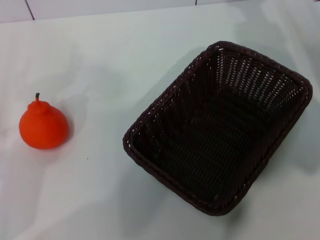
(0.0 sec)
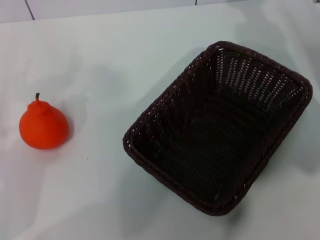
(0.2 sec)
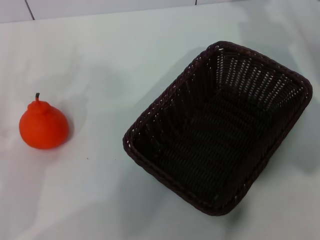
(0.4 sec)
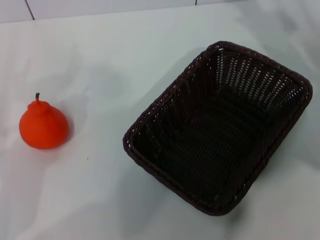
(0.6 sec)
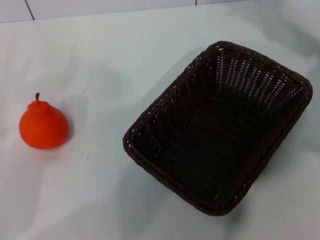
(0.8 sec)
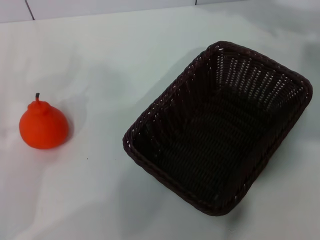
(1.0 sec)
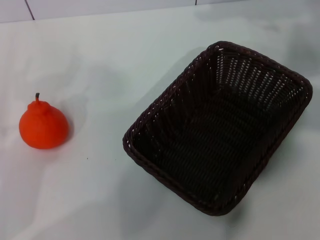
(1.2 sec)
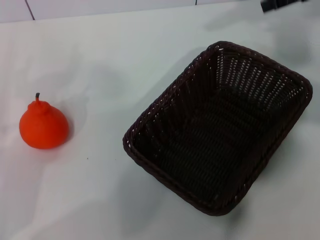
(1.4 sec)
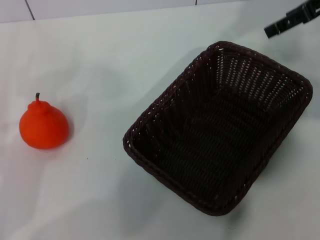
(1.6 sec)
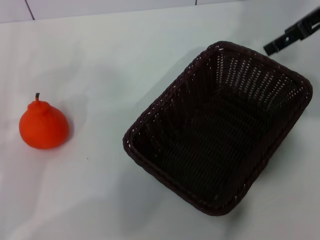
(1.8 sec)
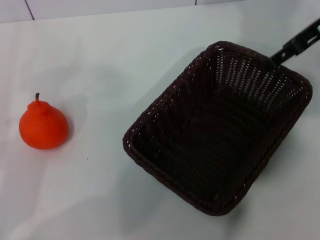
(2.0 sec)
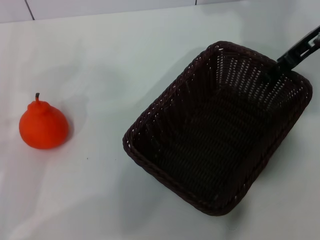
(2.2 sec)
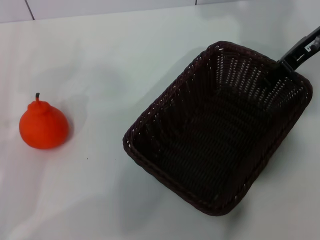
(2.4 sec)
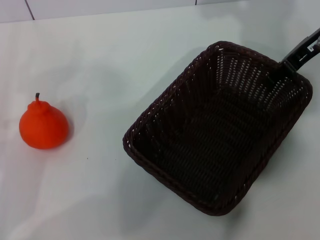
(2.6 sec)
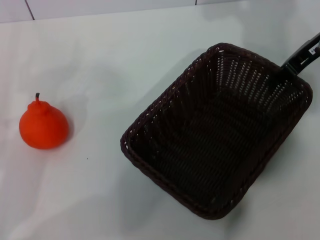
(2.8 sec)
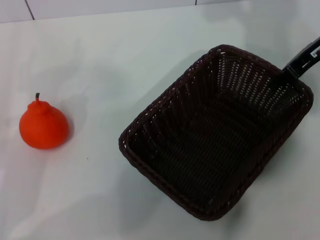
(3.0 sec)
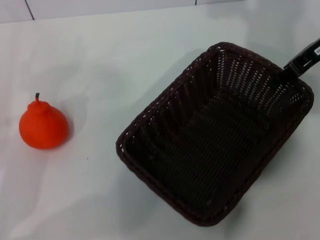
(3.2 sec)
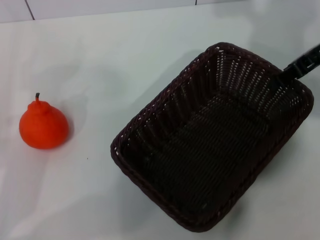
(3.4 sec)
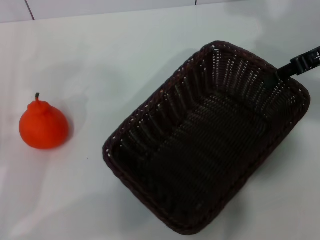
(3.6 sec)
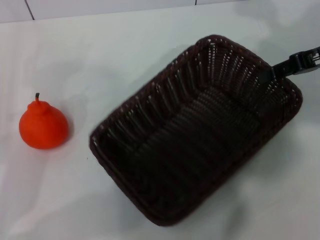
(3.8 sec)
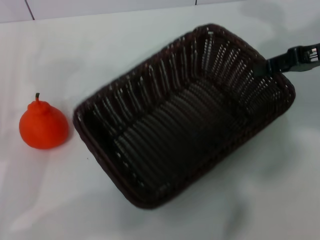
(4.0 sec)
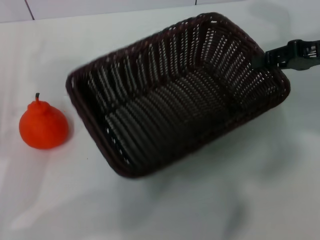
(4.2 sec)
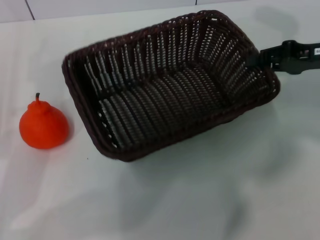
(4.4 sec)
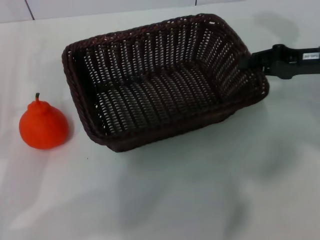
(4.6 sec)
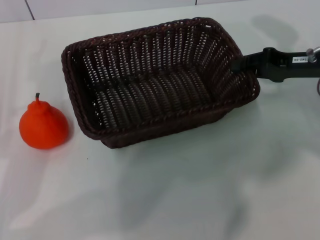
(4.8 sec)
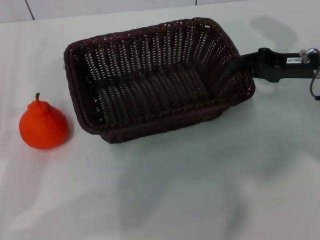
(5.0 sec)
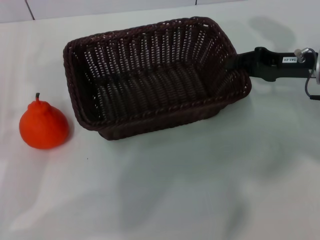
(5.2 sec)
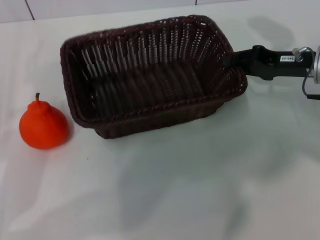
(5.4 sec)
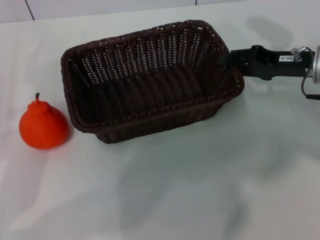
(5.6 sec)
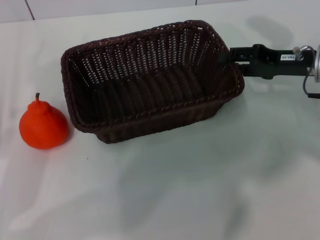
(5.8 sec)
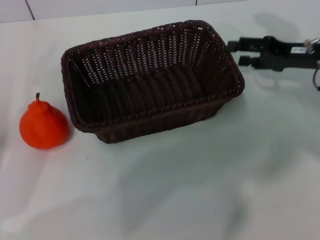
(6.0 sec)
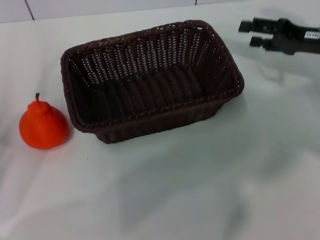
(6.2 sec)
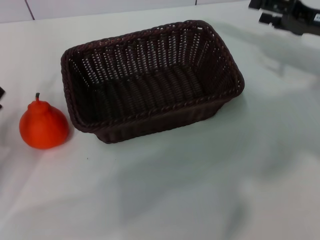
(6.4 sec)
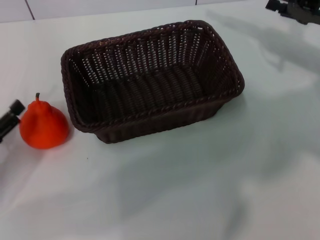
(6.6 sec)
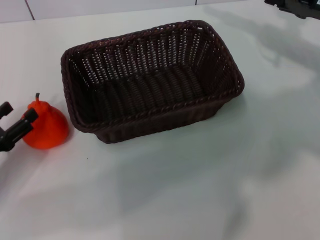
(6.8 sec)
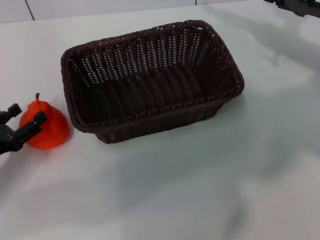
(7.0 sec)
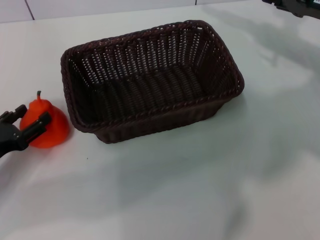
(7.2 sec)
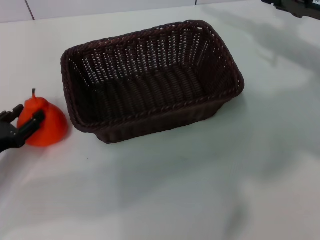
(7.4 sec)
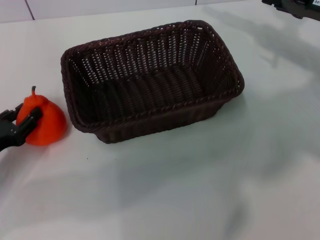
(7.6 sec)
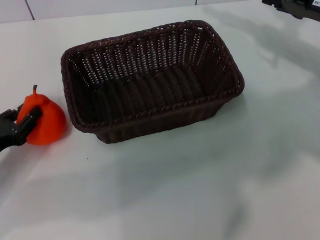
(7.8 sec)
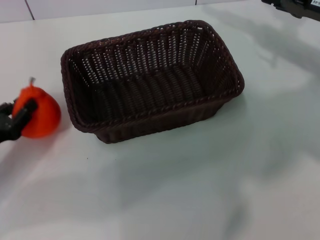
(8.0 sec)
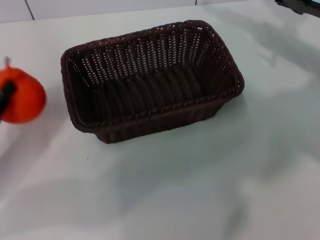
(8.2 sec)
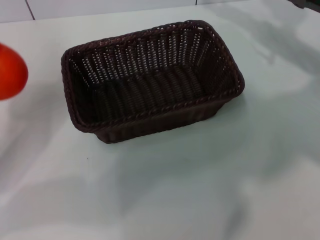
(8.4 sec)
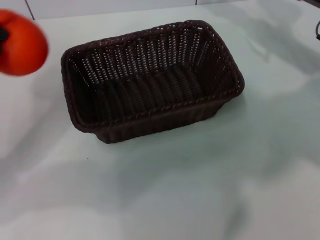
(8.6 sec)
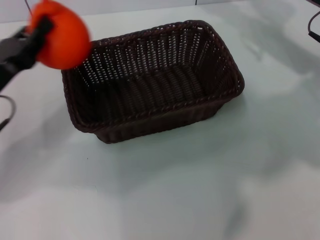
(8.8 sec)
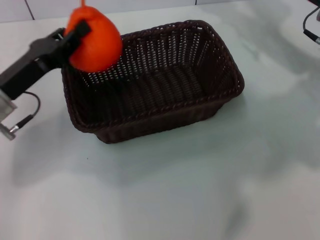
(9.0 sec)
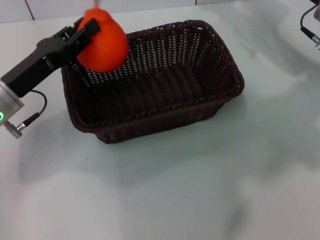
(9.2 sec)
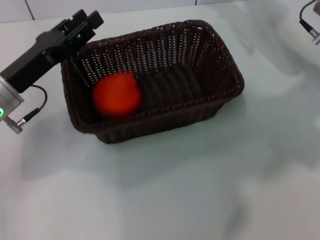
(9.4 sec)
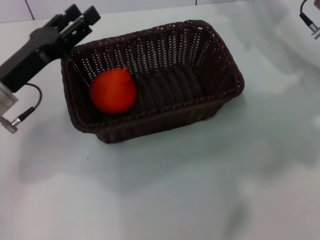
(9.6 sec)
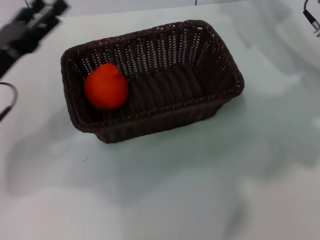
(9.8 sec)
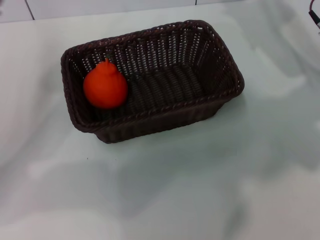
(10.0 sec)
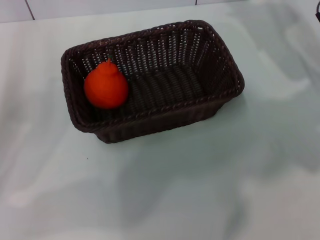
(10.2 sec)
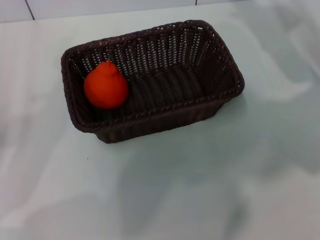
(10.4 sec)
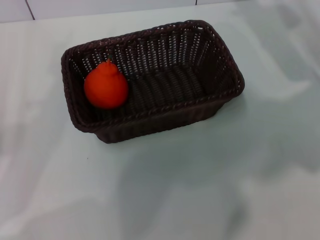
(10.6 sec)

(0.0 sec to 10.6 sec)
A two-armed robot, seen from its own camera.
Task of the whole recording: the right gripper pick up the black basket and place it horizontally in the middle of the table, the left gripper pick up the orange and place it into the black basket.
Step, 0.0 sec - 3.6 sec: Pick up the dark basket with the right gripper.
Step, 3.8 sec - 6.0 sec: Place the dark basket in the center of view with the right gripper.
Step, 6.2 sec - 8.0 sec: Pick up the orange with the left gripper.
Step, 8.2 sec - 9.4 sec: Place the orange into the dark basket with the left gripper.
0.0 sec - 1.6 sec: The right gripper travels upward by some 15 cm.
1.6 sec - 3.0 sec: The right gripper goes about 5 cm downward, and closes up.
3.0 sec - 4.6 sec: The right gripper is displaced downward by some 5 cm.
4.6 sec - 6.0 sec: The right gripper opens its fingers.
7.6 sec - 9.0 sec: The left gripper moves to the right, upward and forward, some 10 cm, and closes up.
9.0 sec - 10.6 sec: The left gripper moves backward and to the left, approximately 15 cm, and opens its fingers.

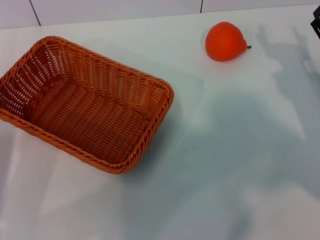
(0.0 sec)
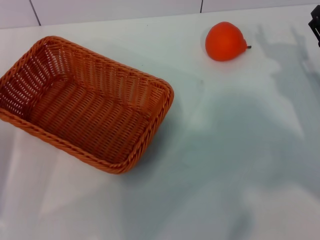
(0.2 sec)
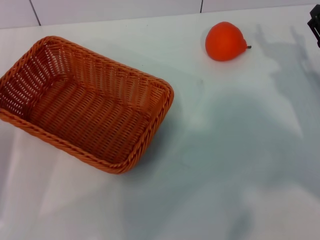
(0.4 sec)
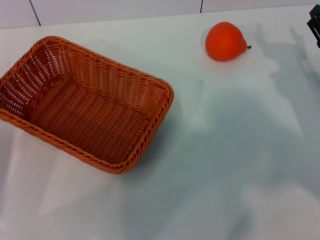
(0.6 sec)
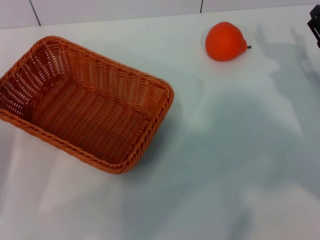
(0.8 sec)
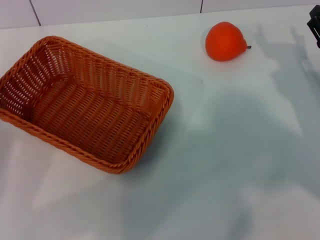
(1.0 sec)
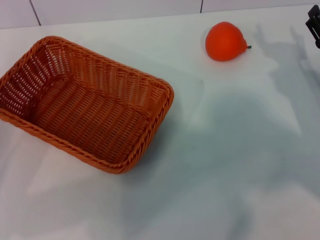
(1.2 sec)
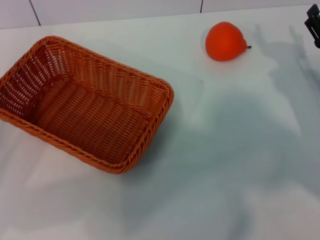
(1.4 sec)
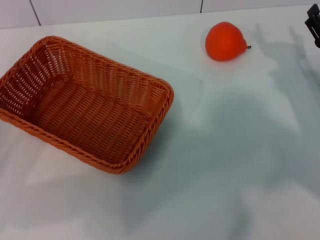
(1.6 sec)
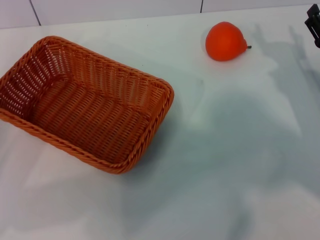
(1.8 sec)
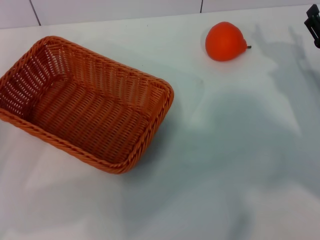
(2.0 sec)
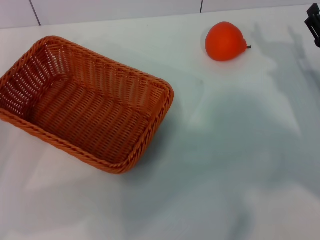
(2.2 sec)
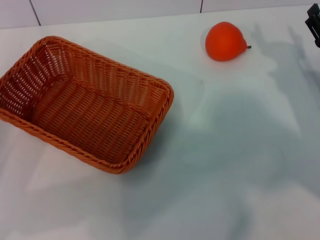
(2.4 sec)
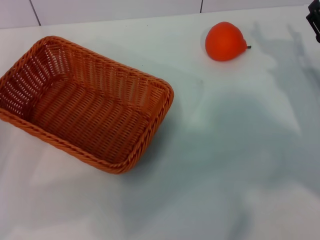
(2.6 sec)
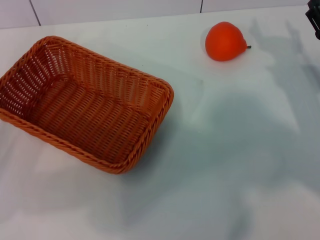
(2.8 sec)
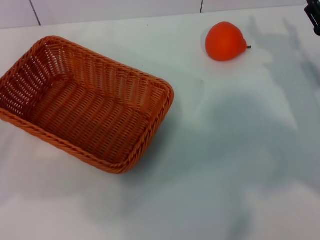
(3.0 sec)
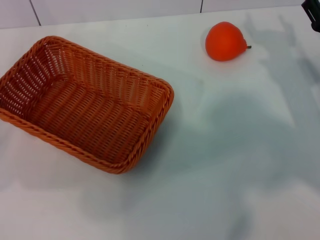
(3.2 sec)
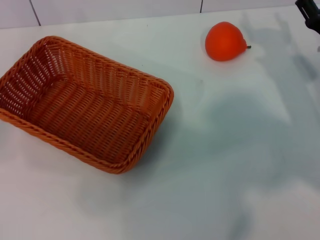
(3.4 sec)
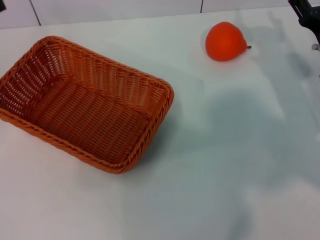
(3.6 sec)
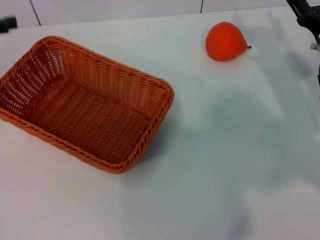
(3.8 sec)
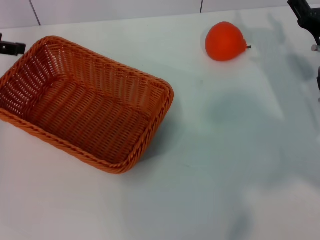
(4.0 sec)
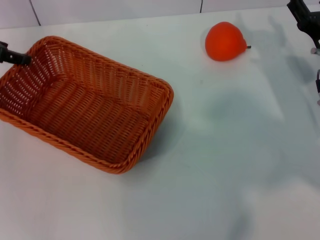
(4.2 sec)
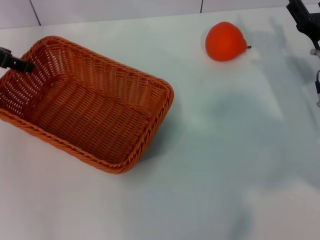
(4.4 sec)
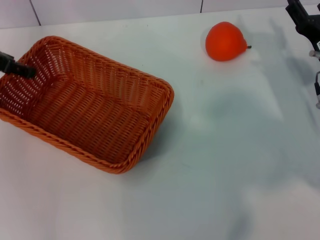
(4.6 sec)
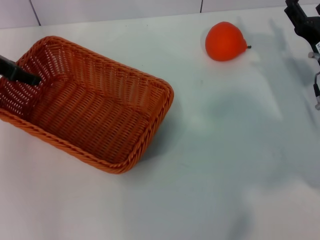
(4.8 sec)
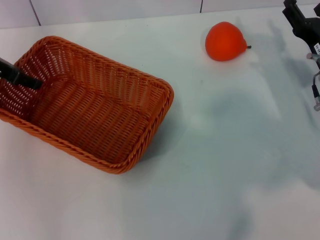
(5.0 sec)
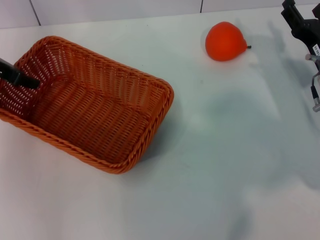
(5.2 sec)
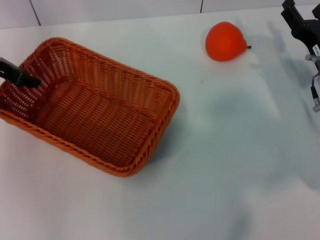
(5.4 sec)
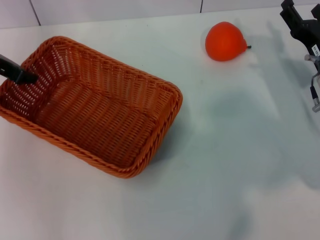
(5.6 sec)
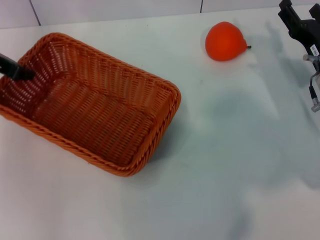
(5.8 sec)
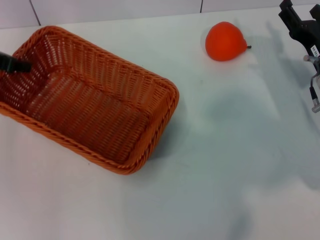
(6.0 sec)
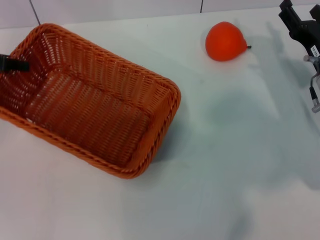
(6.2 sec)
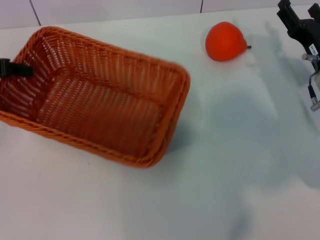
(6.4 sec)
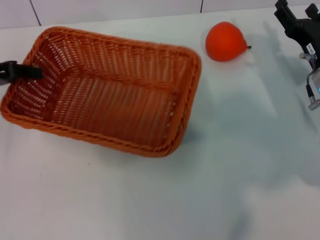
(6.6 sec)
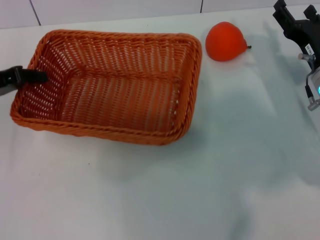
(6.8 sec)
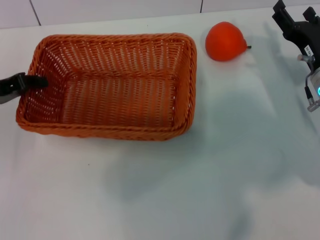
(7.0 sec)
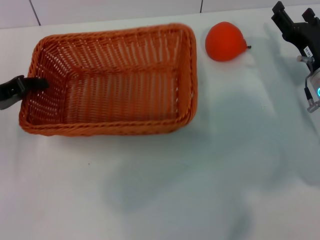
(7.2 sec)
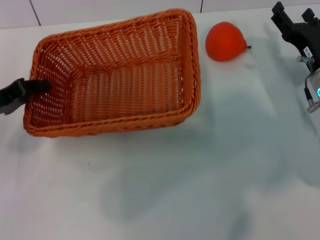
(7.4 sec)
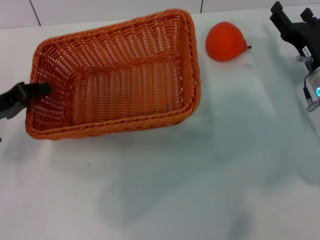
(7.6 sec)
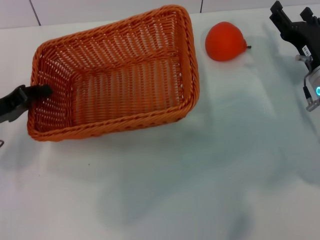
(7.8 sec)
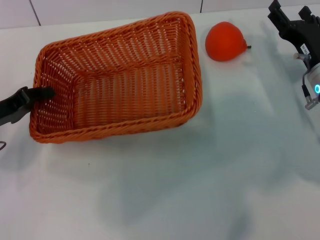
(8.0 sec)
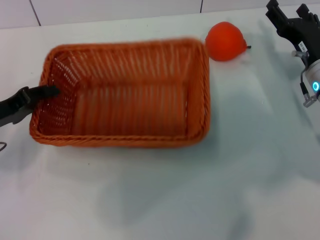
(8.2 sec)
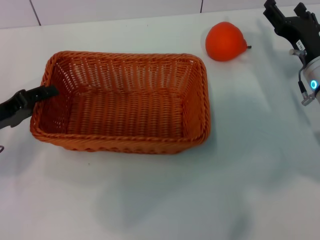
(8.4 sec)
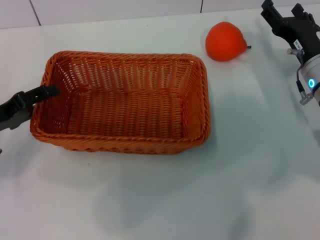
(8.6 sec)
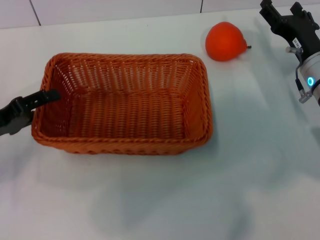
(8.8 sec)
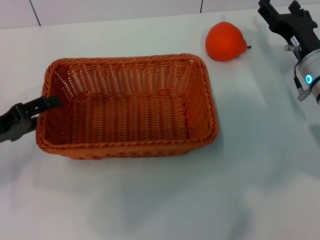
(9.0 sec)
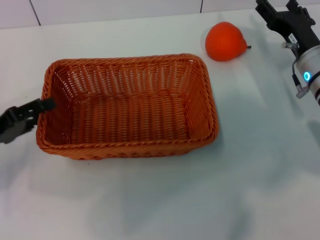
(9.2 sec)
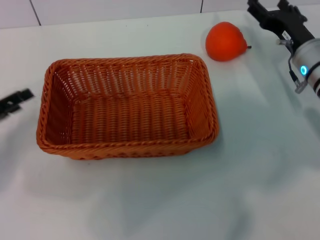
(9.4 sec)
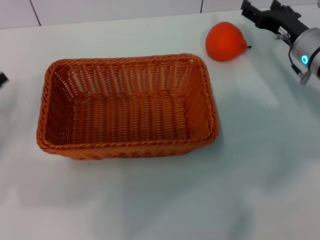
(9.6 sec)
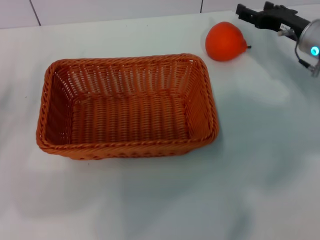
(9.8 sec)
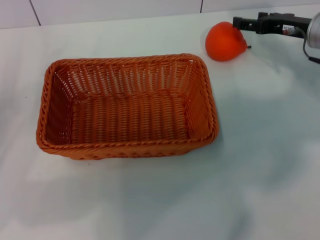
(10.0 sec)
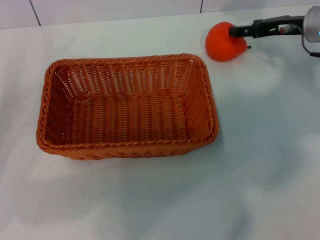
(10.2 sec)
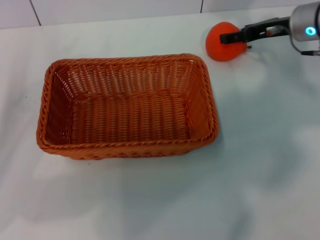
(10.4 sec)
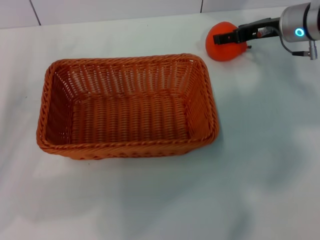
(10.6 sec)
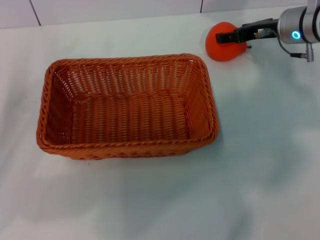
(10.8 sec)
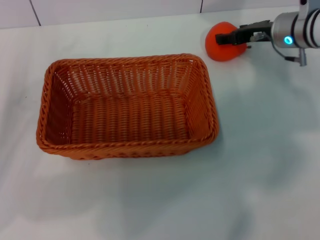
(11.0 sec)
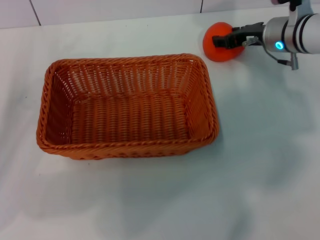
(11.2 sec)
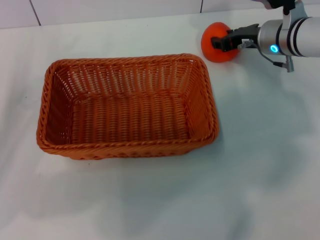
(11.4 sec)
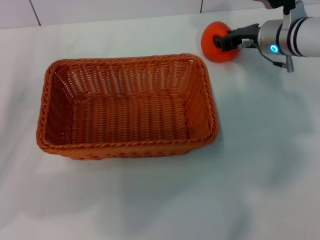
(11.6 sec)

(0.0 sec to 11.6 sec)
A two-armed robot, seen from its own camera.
Task of the whole recording: the left gripper pick up the yellow basket and place it horizontally in the middle of the table, the right gripper pick up the orange and place it into the yellow basket.
Step, 0.0 sec - 6.6 sec: Pick up the light basket with the left gripper.
Step, 7.0 sec - 9.4 sec: Place the light basket in the center of view with the left gripper.
2.8 sec - 4.4 sec: The left gripper travels forward and upward by some 20 cm, and opens its fingers.
4.4 sec - 5.8 sec: The left gripper closes its fingers.
5.8 sec - 7.2 sec: The left gripper shifts some 10 cm backward and downward.
7.2 sec - 8.8 sec: The left gripper moves roughly 5 cm, and opens its fingers.
8.8 sec - 10.2 sec: The right gripper shifts about 10 cm forward and upward.
10.2 sec - 11.6 sec: The right gripper is displaced to the left by approximately 5 cm, and closes up.
